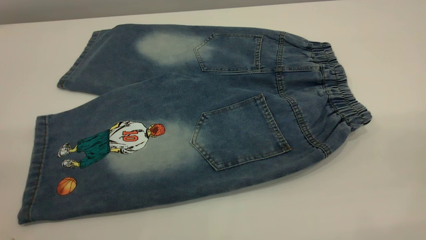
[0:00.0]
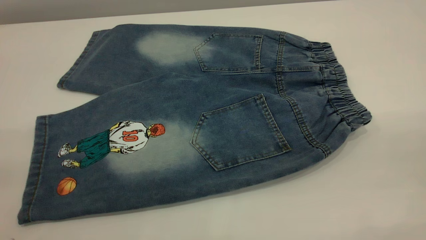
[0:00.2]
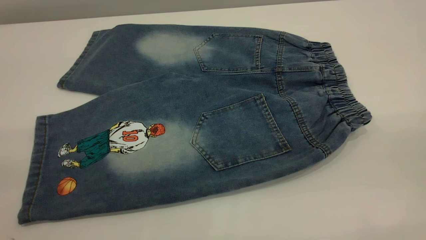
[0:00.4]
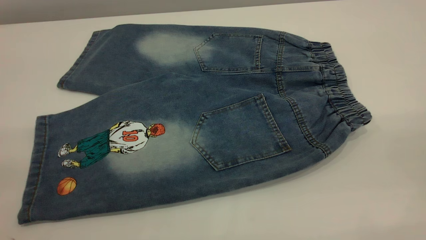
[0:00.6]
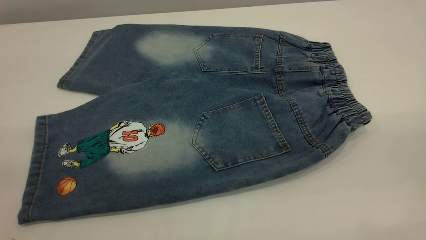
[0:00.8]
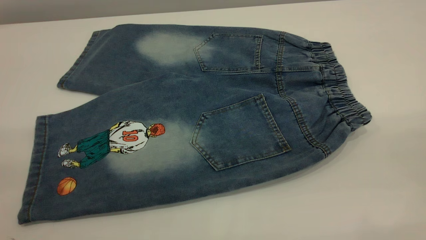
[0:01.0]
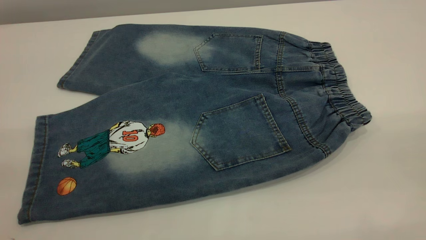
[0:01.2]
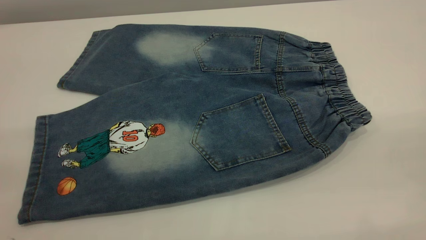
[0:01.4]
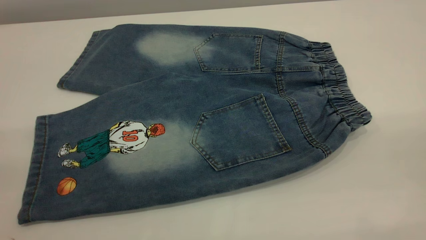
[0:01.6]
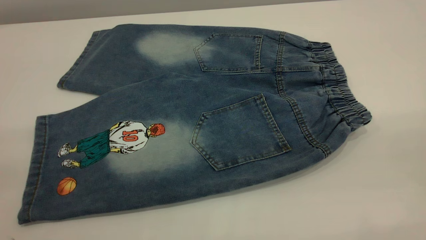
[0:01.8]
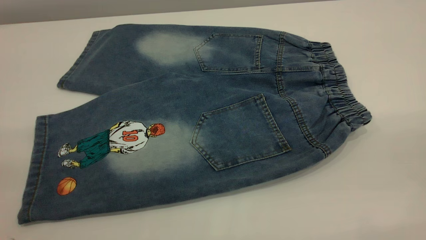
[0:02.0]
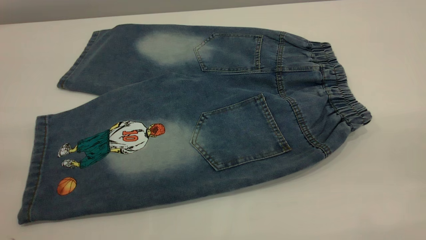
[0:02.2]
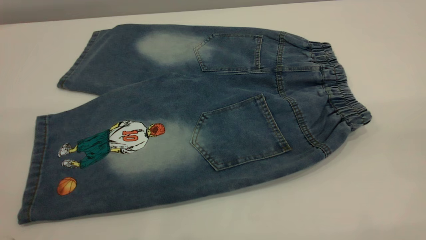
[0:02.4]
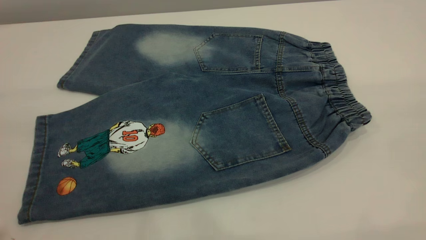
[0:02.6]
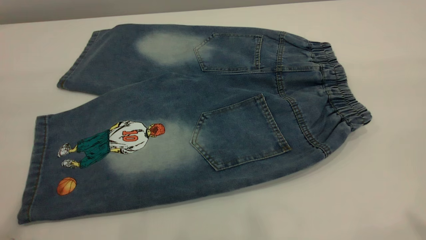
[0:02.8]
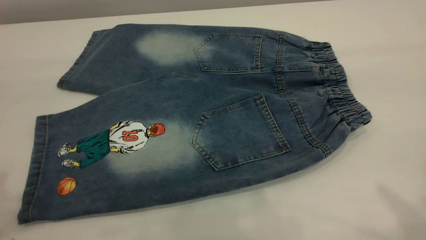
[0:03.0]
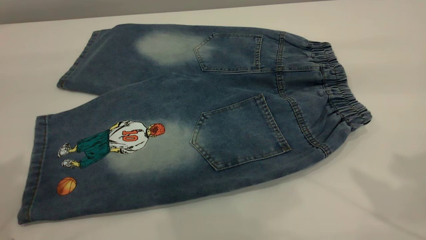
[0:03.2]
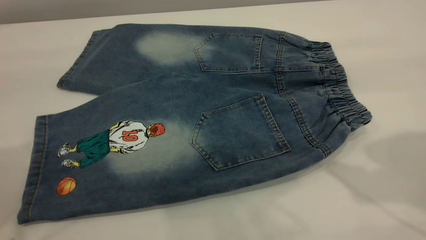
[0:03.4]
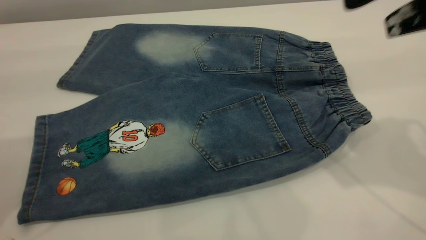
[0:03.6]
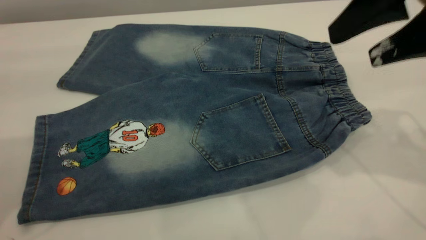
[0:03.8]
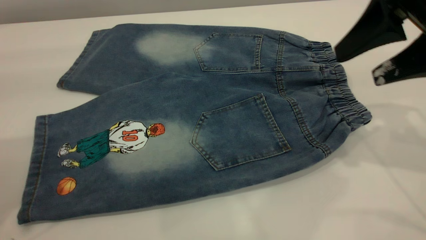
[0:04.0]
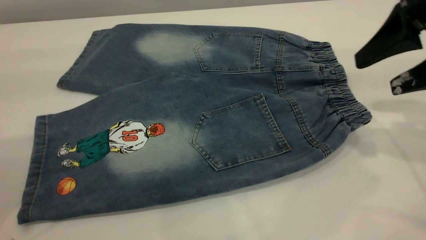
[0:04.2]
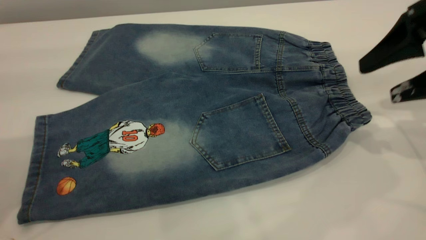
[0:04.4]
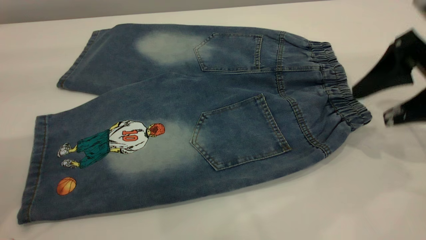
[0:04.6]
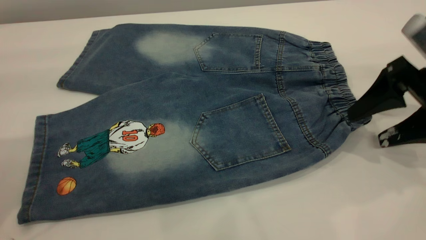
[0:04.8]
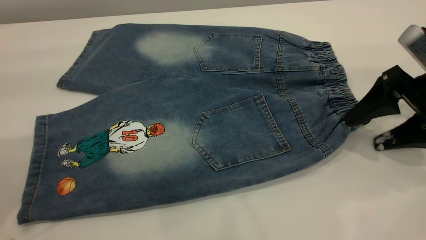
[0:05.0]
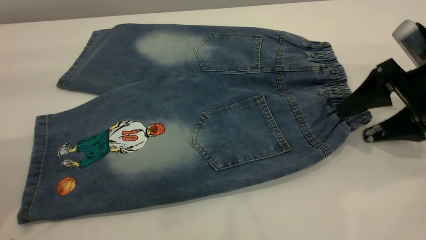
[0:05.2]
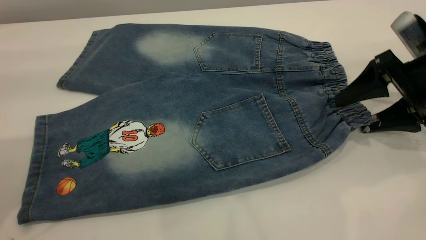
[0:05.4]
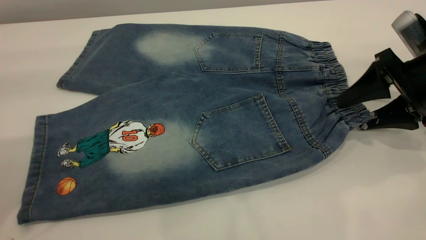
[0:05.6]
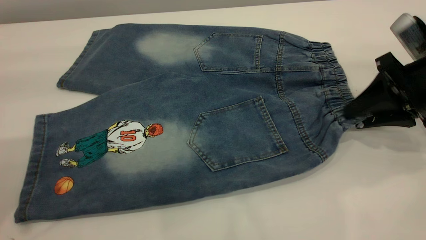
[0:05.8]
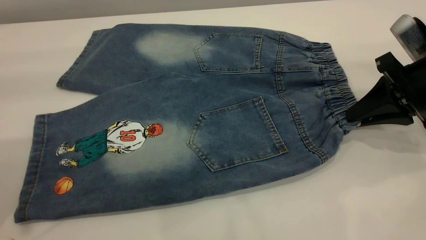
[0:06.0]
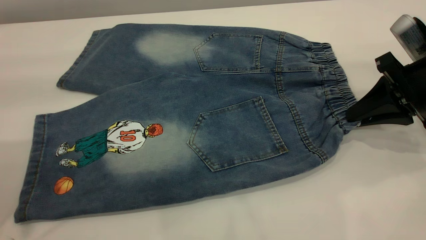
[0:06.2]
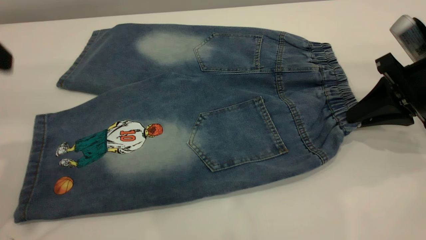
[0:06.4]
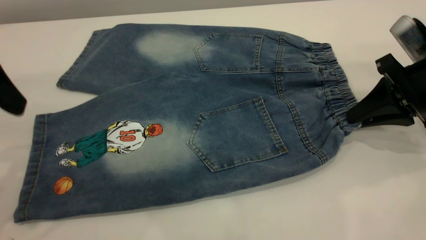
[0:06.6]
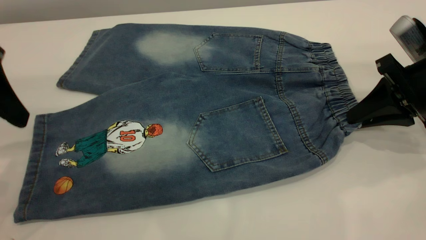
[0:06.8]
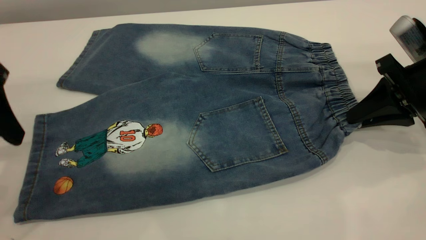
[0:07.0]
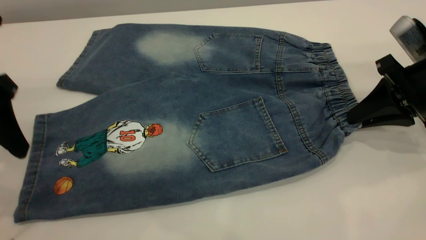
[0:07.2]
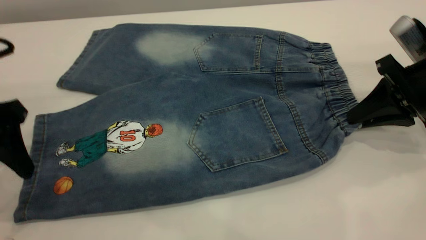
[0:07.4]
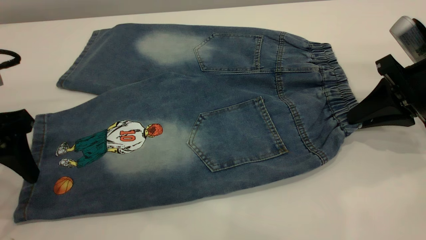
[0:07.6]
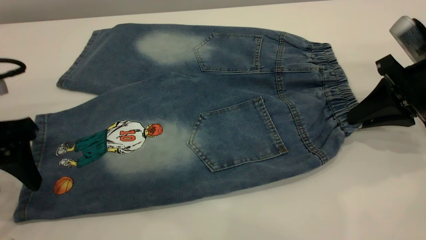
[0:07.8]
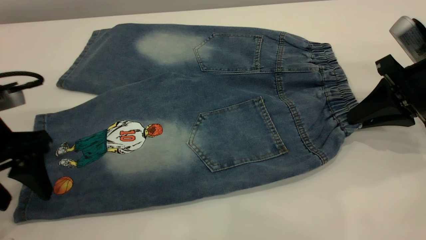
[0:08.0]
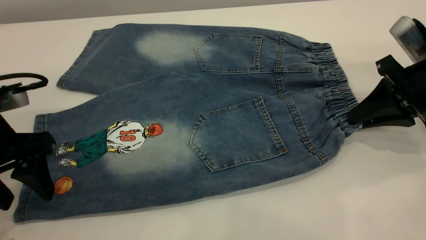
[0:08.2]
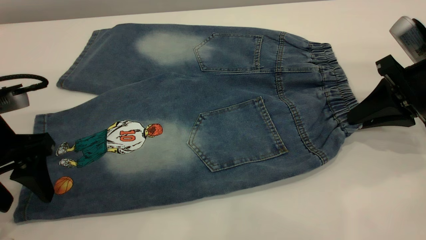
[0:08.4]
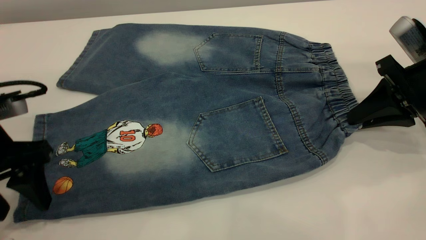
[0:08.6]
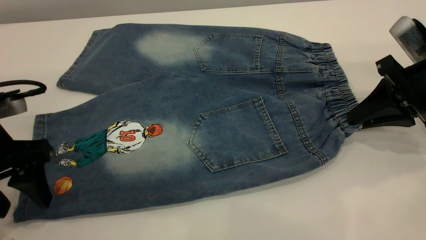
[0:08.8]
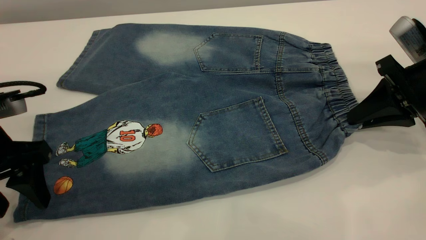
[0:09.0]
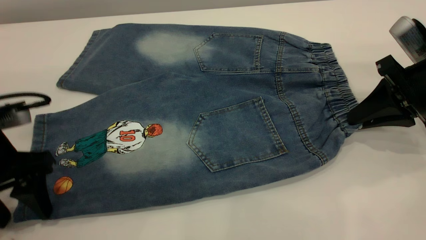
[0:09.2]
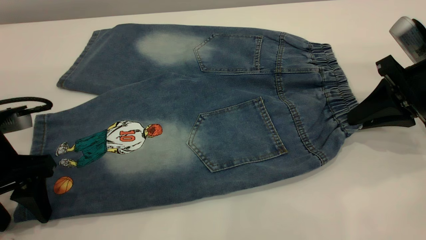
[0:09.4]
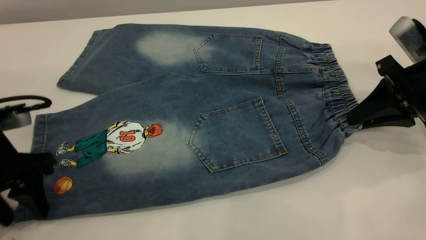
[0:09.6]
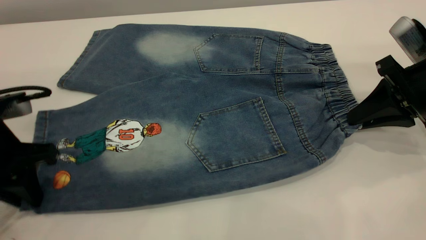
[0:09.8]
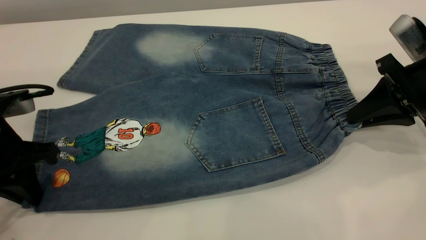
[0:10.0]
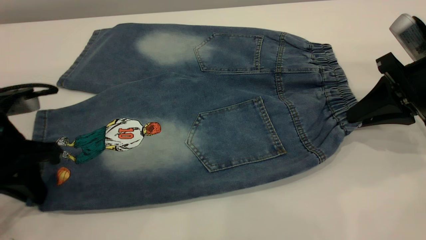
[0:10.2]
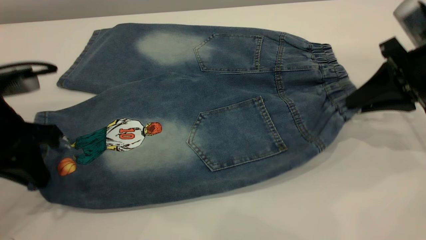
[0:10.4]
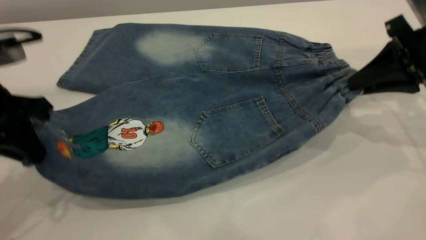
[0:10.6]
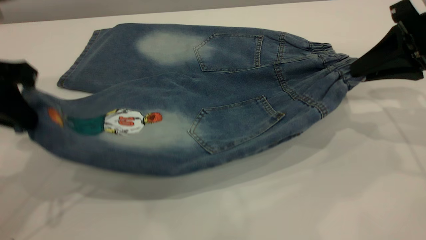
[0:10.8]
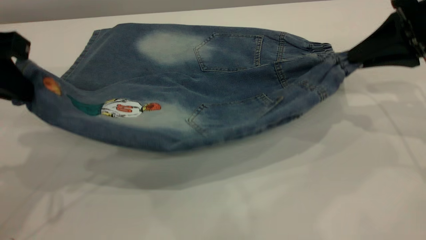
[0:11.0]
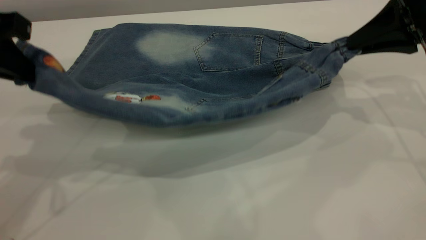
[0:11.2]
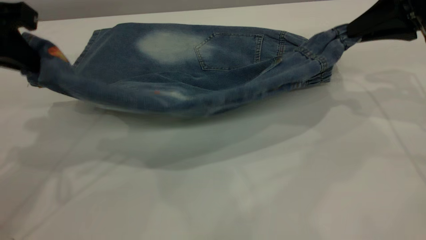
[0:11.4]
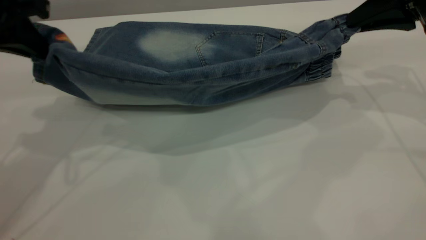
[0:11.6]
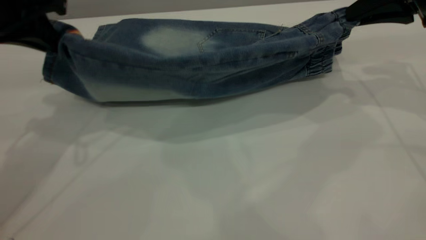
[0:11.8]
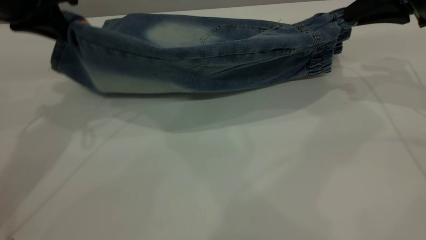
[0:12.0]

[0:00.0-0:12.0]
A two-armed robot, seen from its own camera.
0:00.0 to 0:01.6: Neither gripper changes place.
0:03.0 to 0:04.4: The left gripper shifts approximately 10 cm forward and downward. The right gripper goes approximately 25 cm downward and forward.
0:04.4 to 0:06.0: The right gripper travels downward by approximately 5 cm, and closes up.
0:06.0 to 0:07.6: The left gripper shifts some 15 cm downward.
0:07.6 to 0:09.0: The grippers move only a little.
0:09.0 to 0:10.4: The left gripper closes its fingers.
0:10.4 to 0:12.0: The left gripper goes approximately 15 cm forward and upward; the right gripper heads forward and upward, covering about 10 cm.

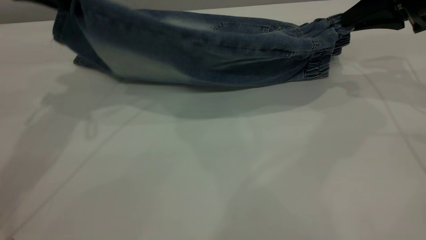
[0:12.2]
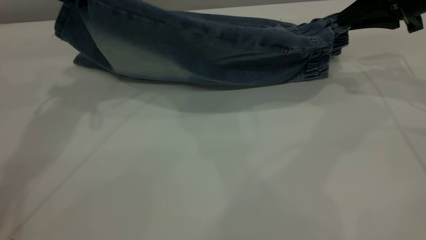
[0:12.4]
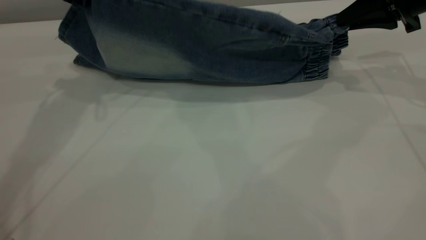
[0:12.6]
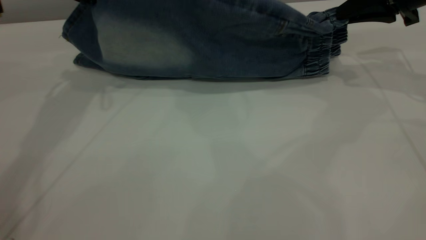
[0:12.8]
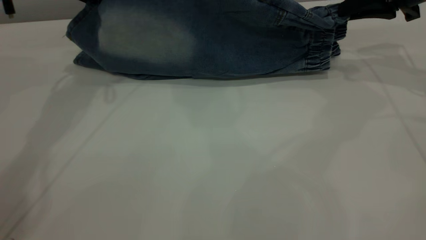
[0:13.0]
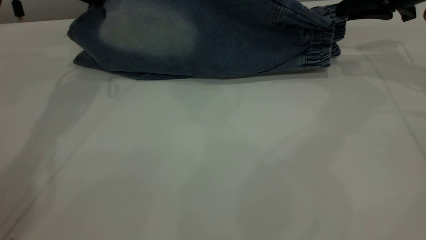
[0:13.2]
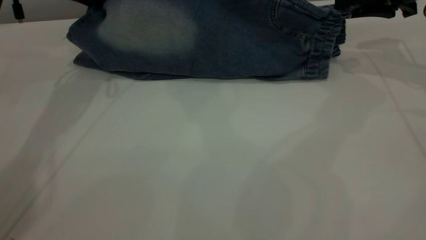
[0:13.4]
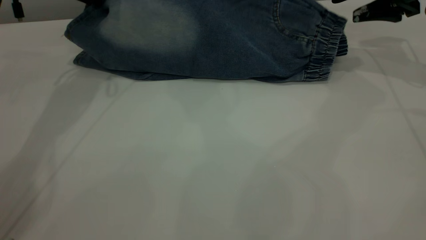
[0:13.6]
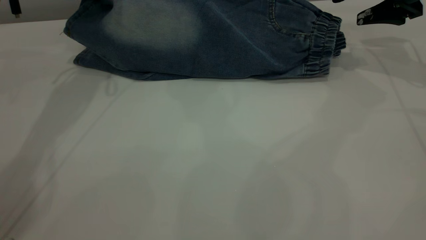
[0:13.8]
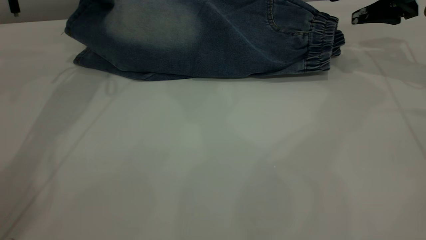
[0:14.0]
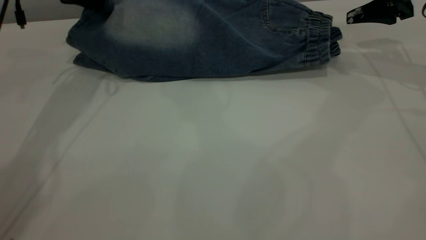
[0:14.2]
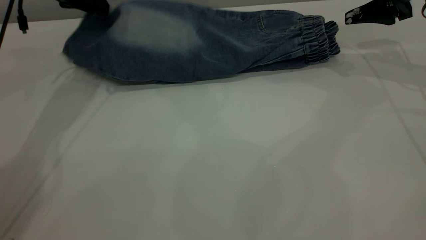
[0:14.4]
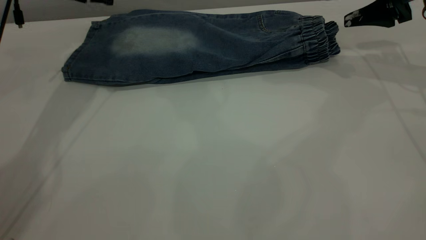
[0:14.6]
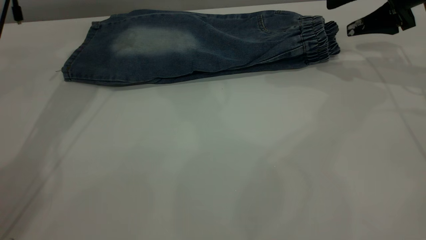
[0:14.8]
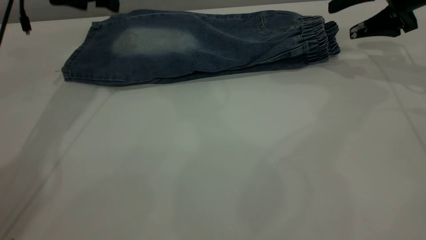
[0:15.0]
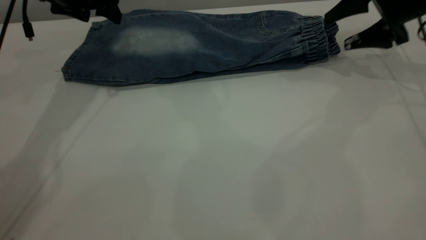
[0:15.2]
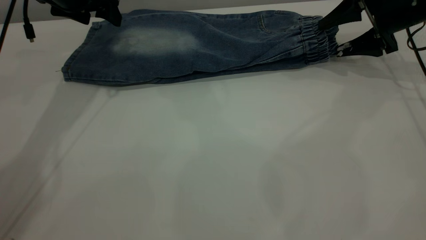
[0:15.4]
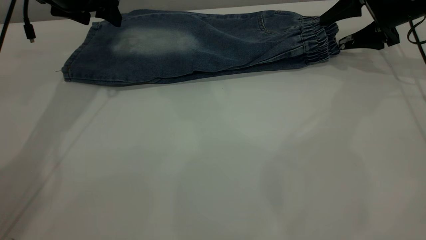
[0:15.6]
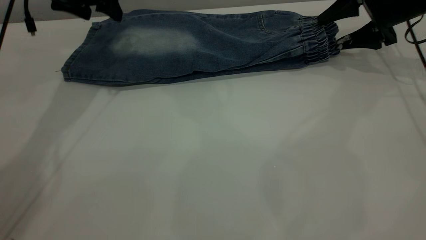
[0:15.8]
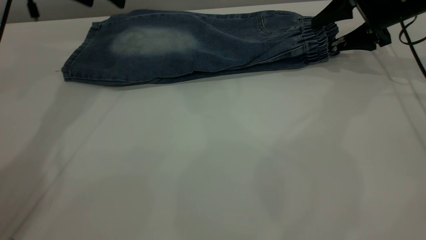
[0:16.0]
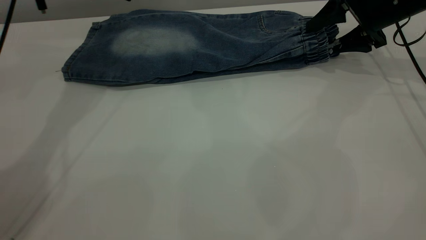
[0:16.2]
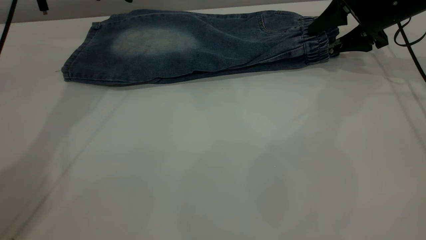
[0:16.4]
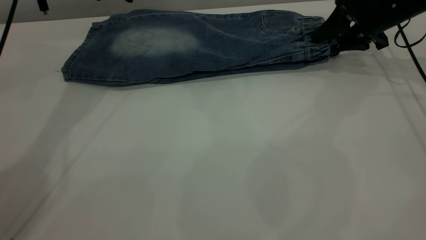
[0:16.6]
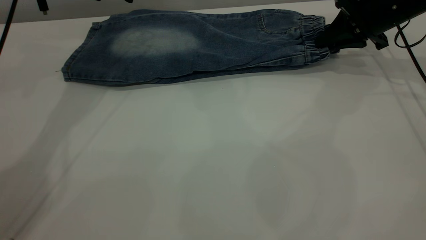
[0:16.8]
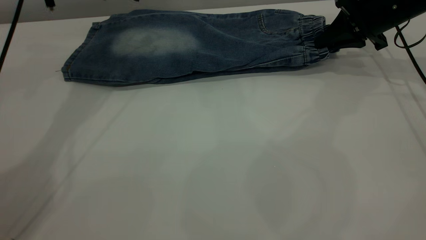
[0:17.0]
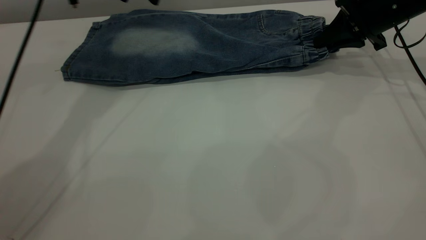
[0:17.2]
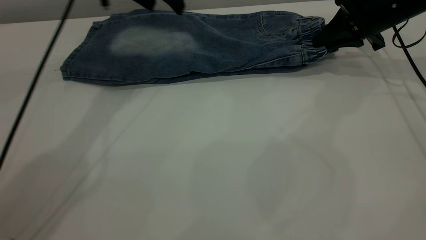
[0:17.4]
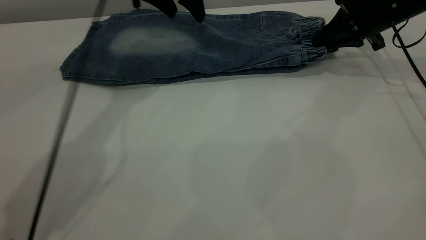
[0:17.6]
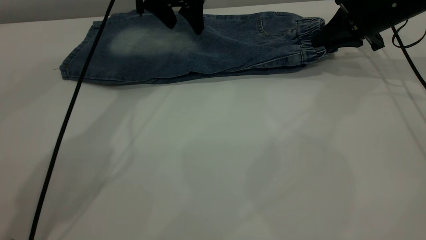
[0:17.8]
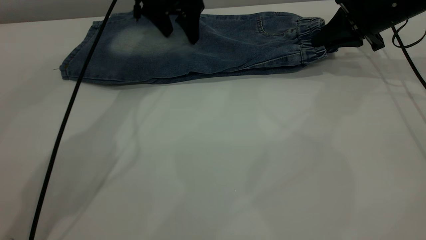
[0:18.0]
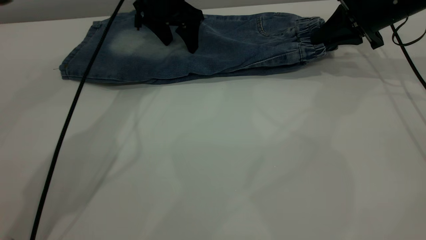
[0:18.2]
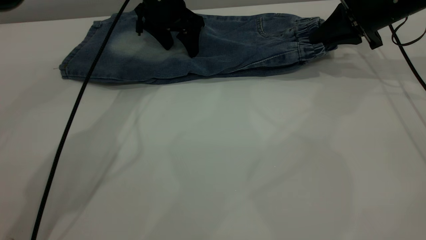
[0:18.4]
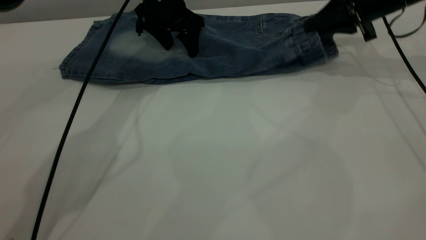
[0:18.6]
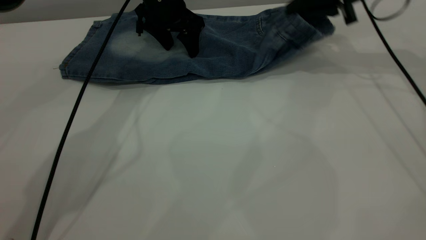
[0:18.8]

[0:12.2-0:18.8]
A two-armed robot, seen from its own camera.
Step, 0:12.2 to 0:14.6: Fold the bottom of the pants upward.
0:12.2 to 0:13.8: The right gripper travels forward by roughly 5 cm, and opens its fingers. The left gripper shifts roughly 10 cm forward.
0:13.8 to 0:15.4: The left gripper opens its fingers, while the right gripper shifts by some 5 cm.
0:15.4 to 0:17.2: The right gripper closes. Meanwhile the left gripper is displaced to the right by some 5 cm.
0:17.2 to 0:18.8: The right gripper moves upward and to the left, about 10 cm. The left gripper goes about 10 cm downward and to the right.
